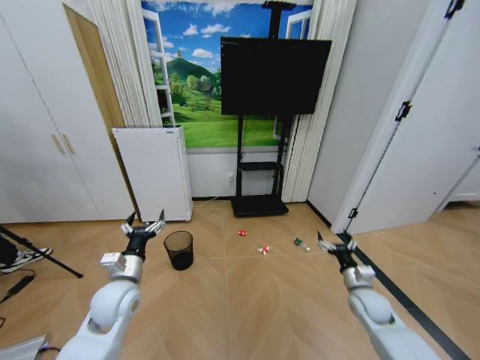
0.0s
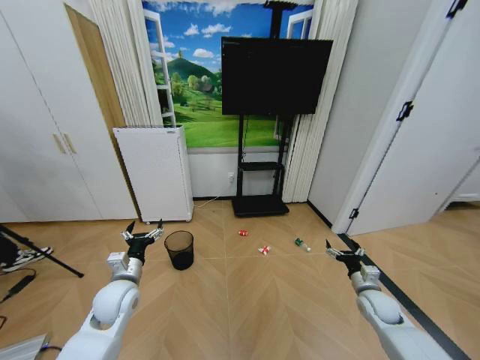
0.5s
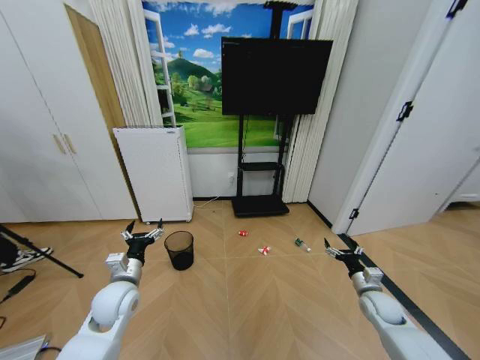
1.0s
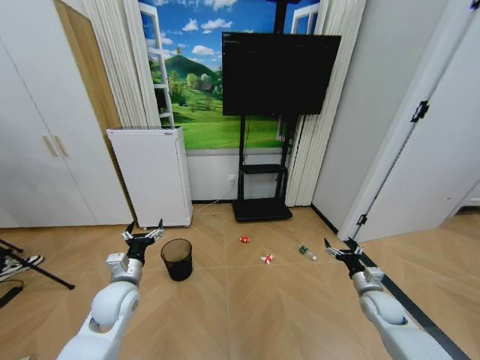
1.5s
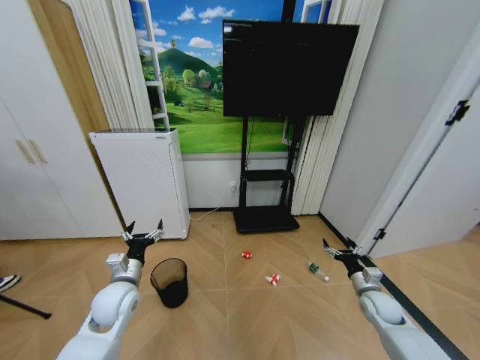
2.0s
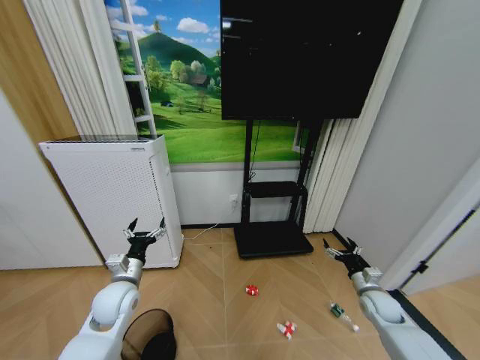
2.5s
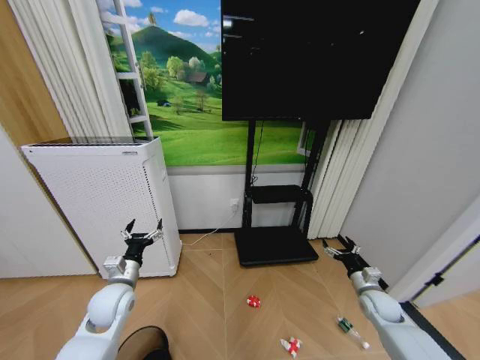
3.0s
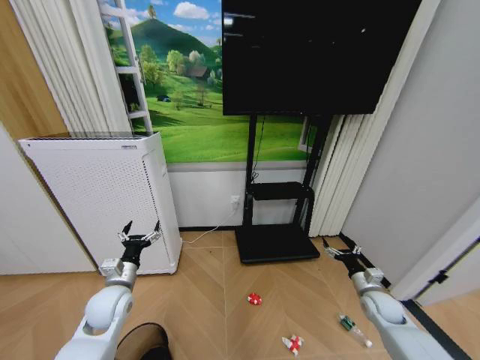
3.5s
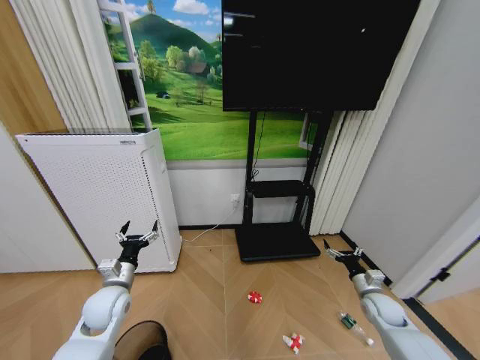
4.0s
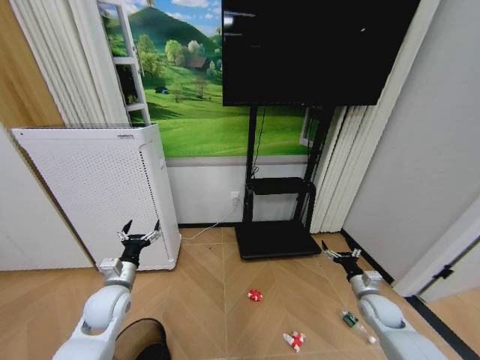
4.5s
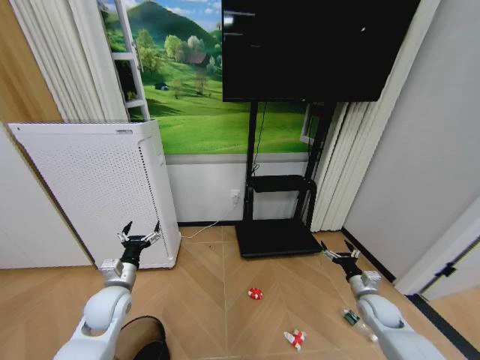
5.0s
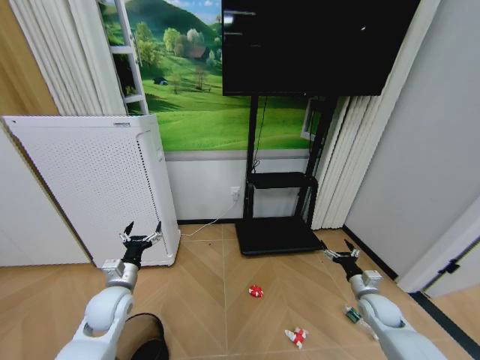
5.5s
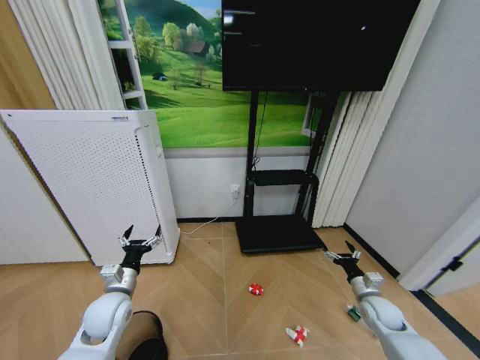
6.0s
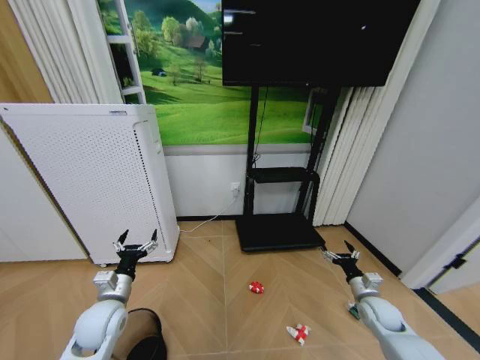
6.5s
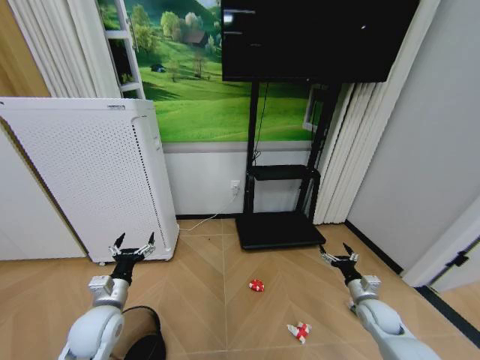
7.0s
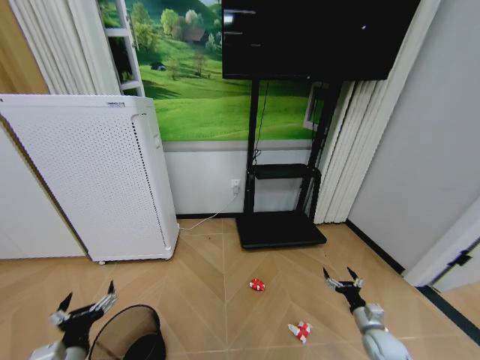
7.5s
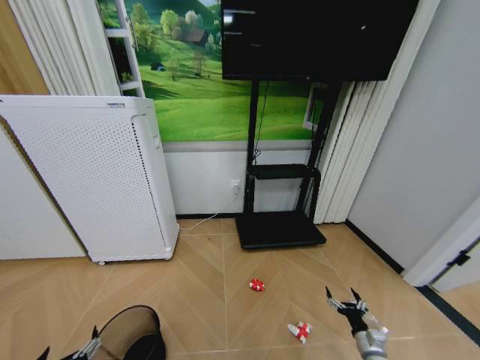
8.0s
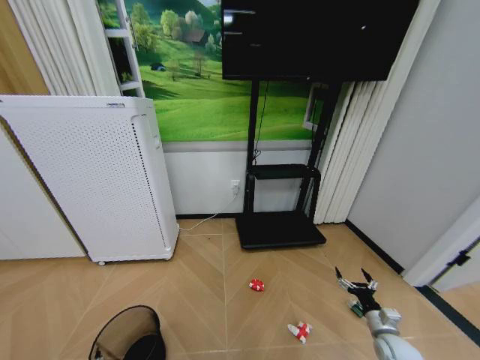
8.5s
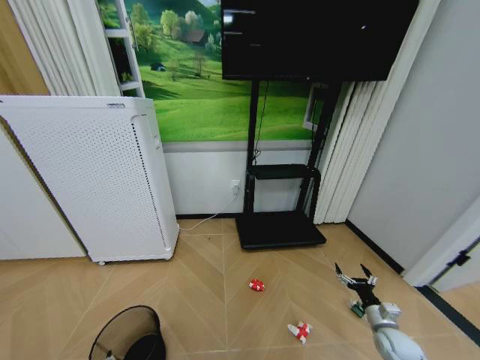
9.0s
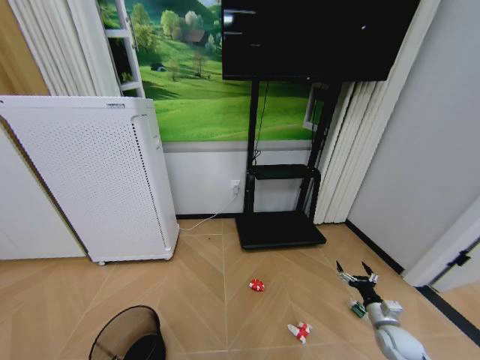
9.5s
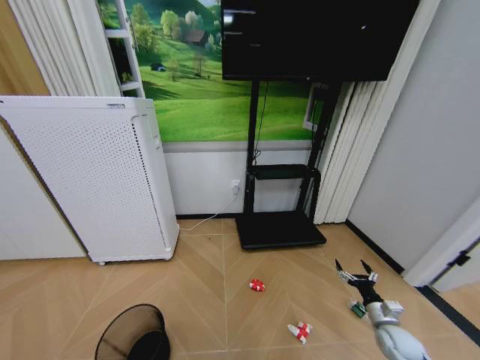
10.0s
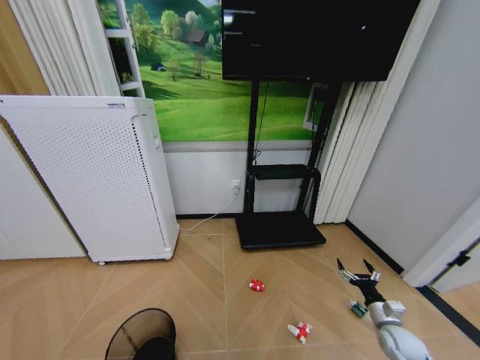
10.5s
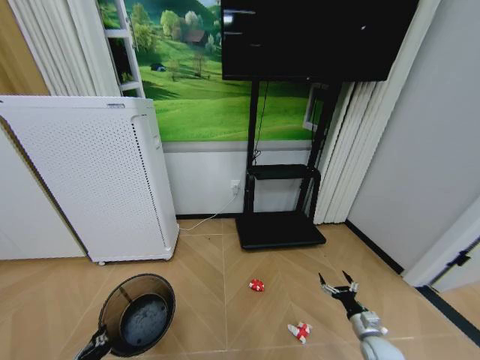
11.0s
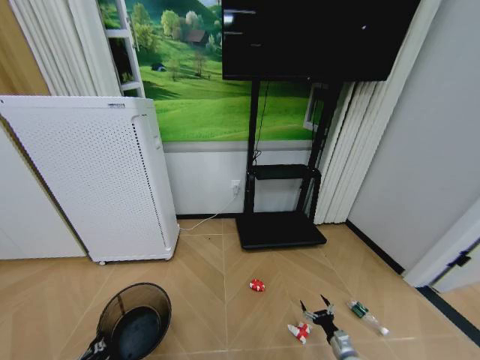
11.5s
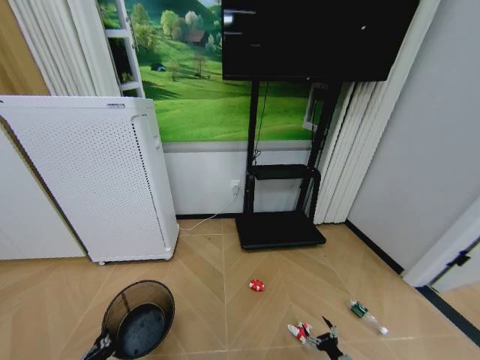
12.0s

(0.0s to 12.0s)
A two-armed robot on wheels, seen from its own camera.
Task of the whole recording: Pick up the trash bin and place the garbage on the floor into it.
6.0s - 8.0s: The right gripper travels downward and backward by about 20 cm; the left gripper is displaced backward by some 20 cm.
8.0s - 10.0s: The left gripper heads downward, covering about 5 cm, and closes. Meanwhile the right gripper moves upward and forward, about 10 cm.
10.0s - 12.0s: The right gripper shifts roughly 20 cm downward, backward and to the left. Meanwhile the left gripper shifts some 5 cm upward.

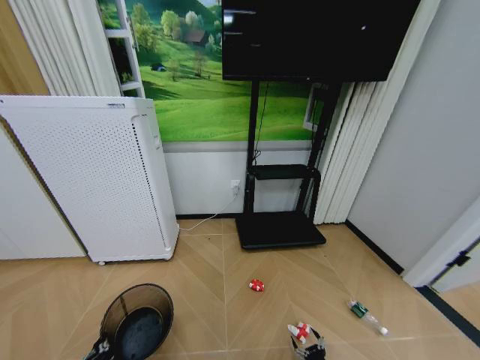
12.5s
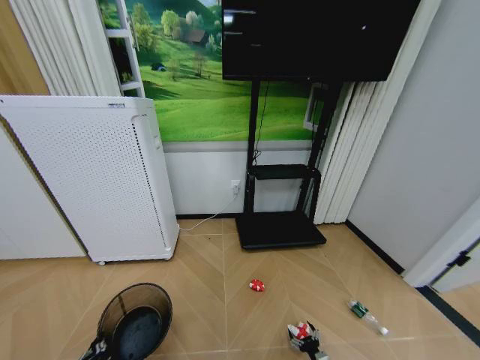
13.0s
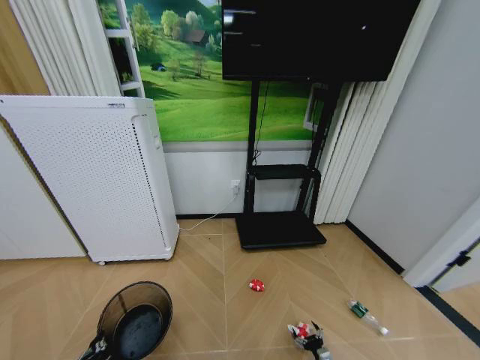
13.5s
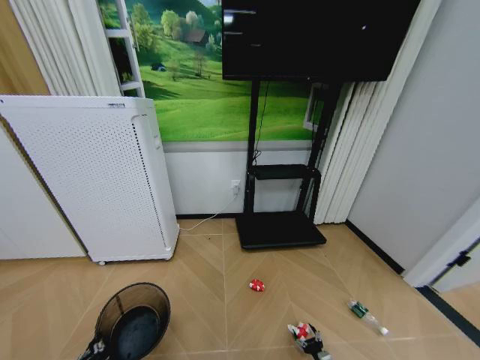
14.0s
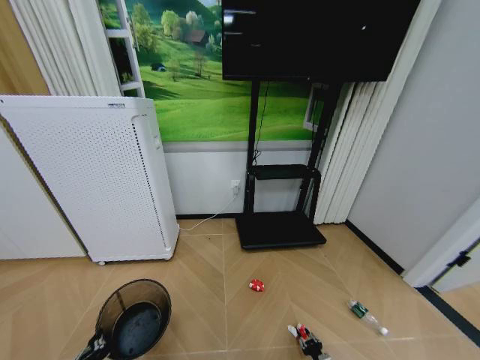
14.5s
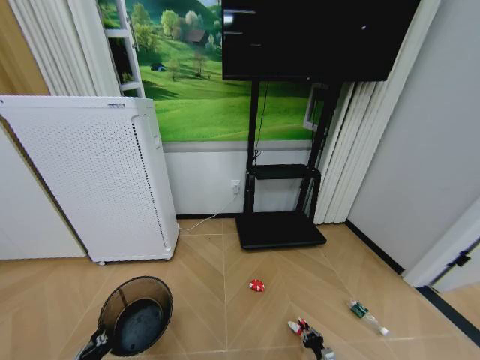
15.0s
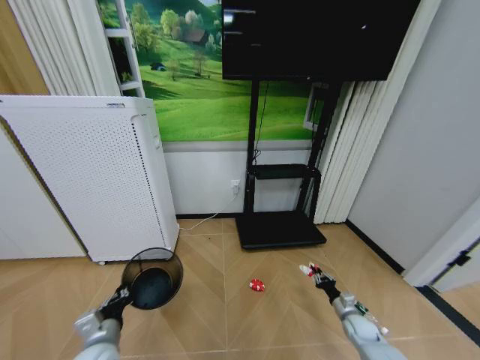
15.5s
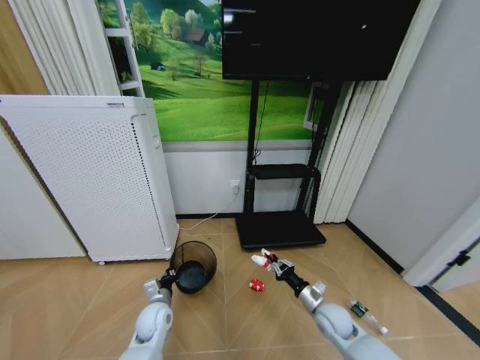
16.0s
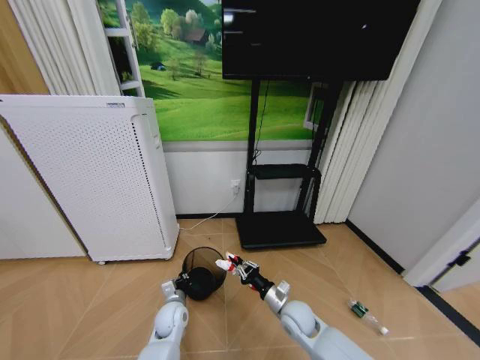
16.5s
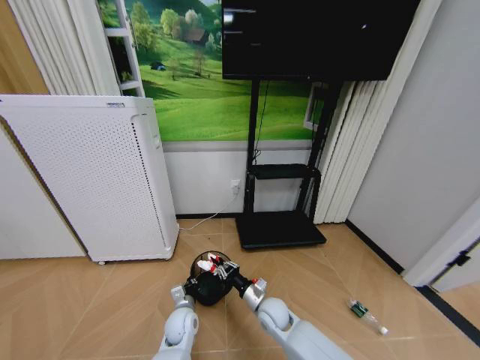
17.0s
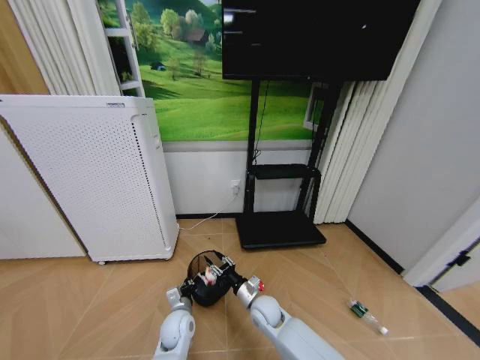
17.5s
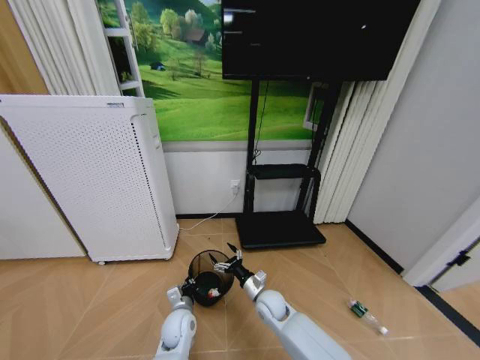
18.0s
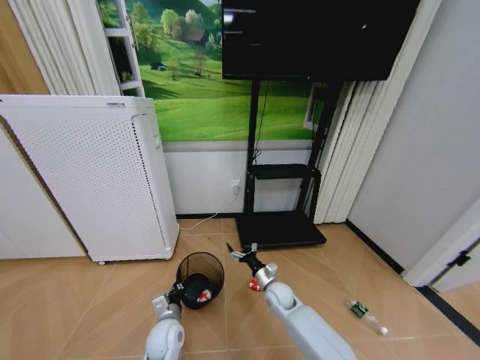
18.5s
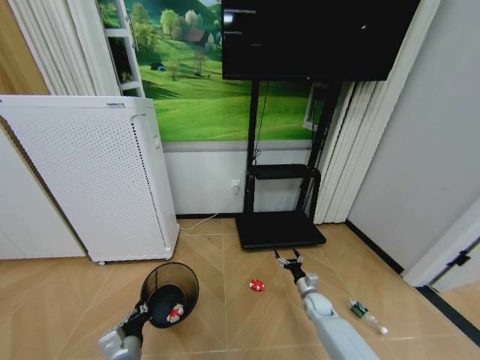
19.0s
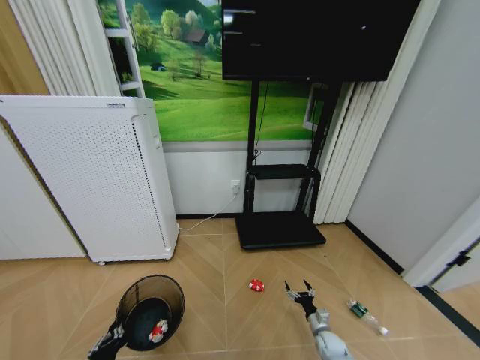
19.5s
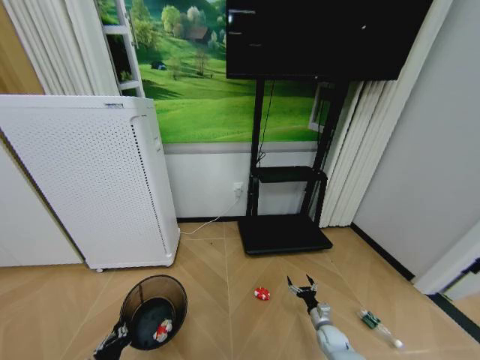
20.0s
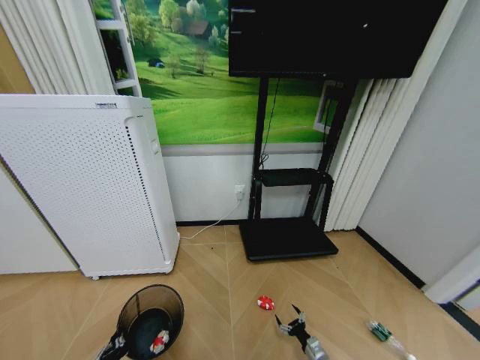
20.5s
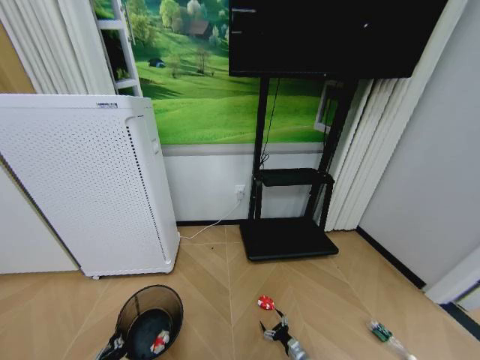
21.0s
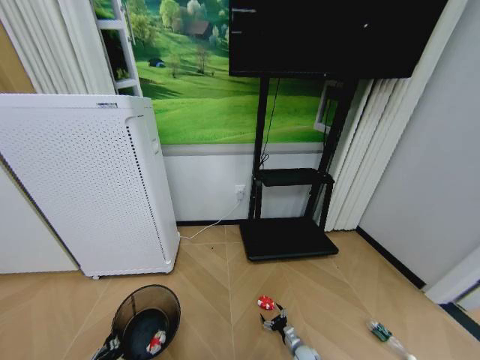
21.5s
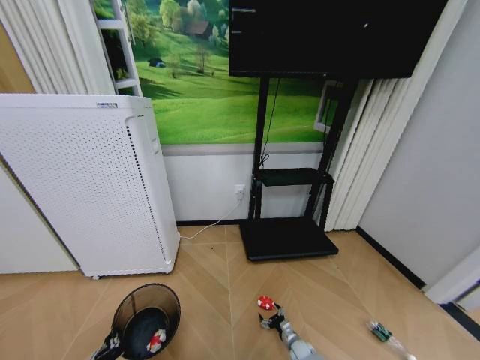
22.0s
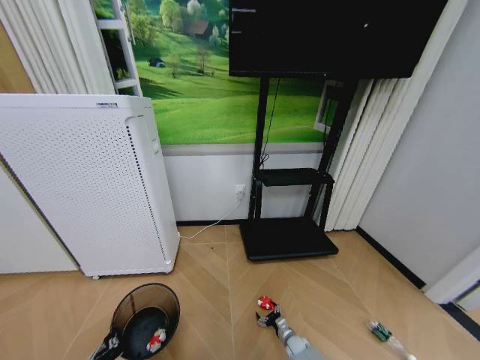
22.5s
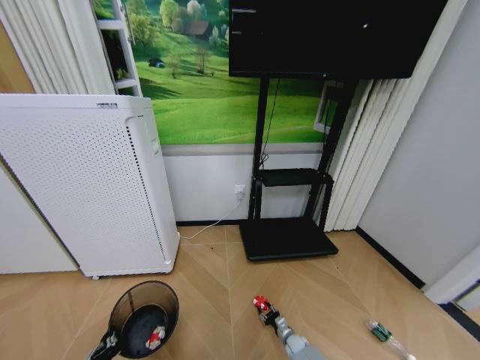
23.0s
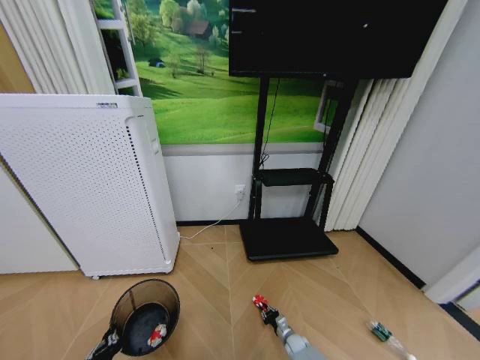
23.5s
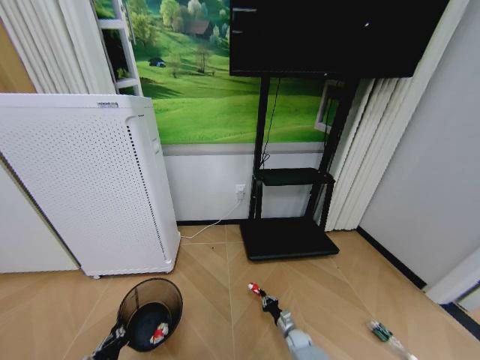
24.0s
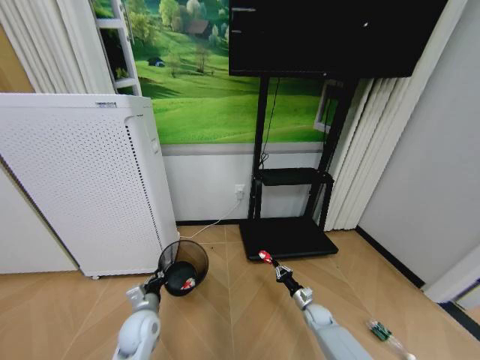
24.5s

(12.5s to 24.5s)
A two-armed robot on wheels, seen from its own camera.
Task of the whole recording: Pick up the trash bin and place the garbage on the floor into it.
14.5s - 16.5s: The left gripper goes roughly 30 cm forward, to the right and downward. The right gripper heads upward, to the left and forward, covering roughly 35 cm.
16.5s - 18.5s: The right gripper shifts about 10 cm forward, moves about 10 cm to the left and comes back, and opens up. Meanwhile the left gripper heads backward, covering approximately 5 cm.
18.5s - 20.5s: The left gripper is displaced backward and to the left by approximately 20 cm; the right gripper goes approximately 35 cm downward, backward and to the right.
20.5s - 22.5s: The right gripper is displaced to the left and forward by roughly 10 cm.
22.5s - 24.5s: The right gripper is displaced upward, forward and to the right by approximately 15 cm, and closes its fingers; the left gripper shifts roughly 15 cm forward.

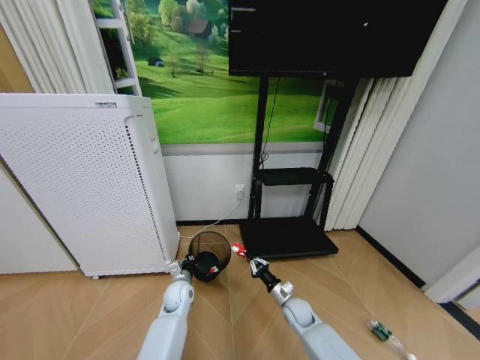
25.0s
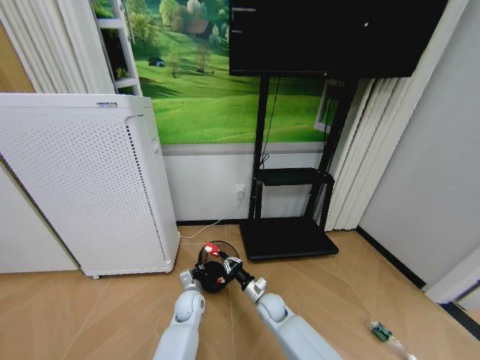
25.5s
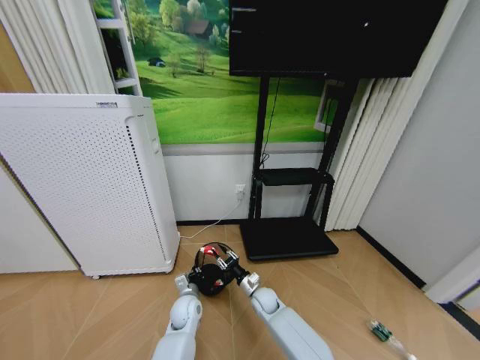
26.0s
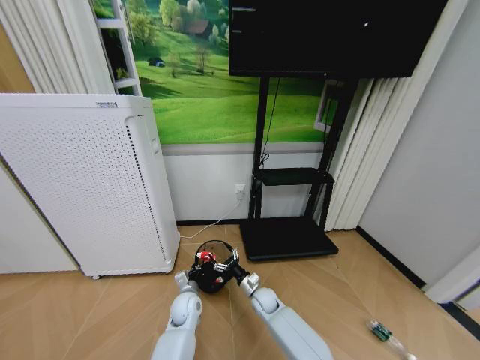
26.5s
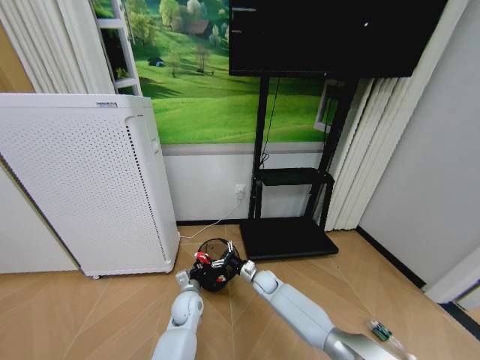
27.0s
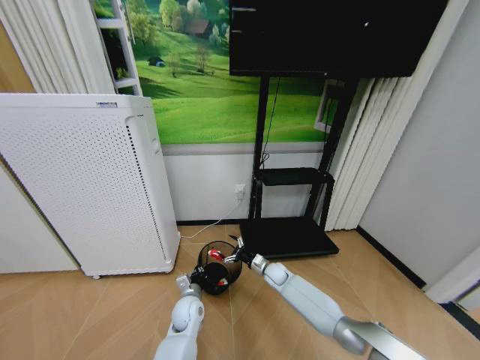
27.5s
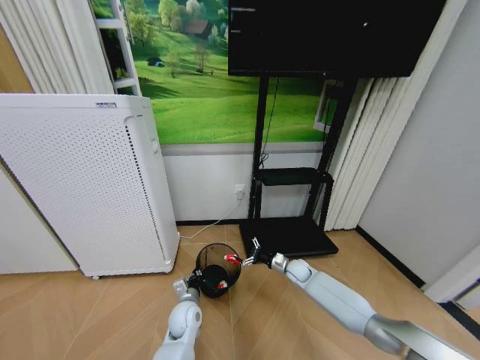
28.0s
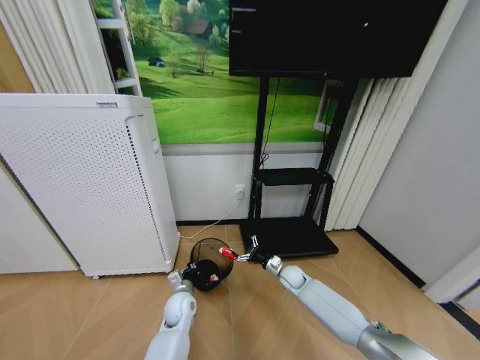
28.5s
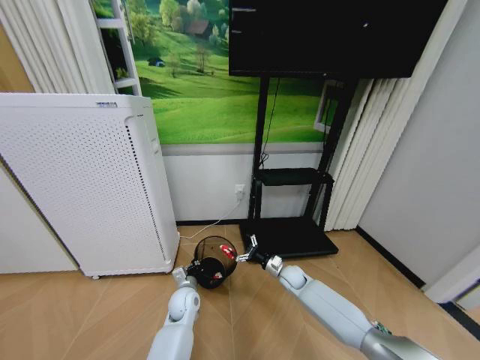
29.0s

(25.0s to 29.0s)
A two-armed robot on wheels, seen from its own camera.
Task of the whole recording: Pick up the trash bin and place the garbage on the floor into it.
25.0s - 27.0s: The left gripper changes place by about 5 cm, while the right gripper shifts about 15 cm to the left and forward, and opens.
27.0s - 29.0s: The right gripper is displaced to the right by about 10 cm.
